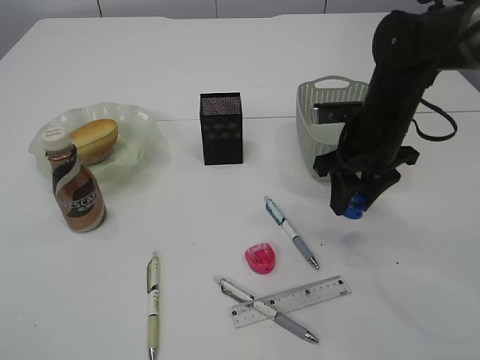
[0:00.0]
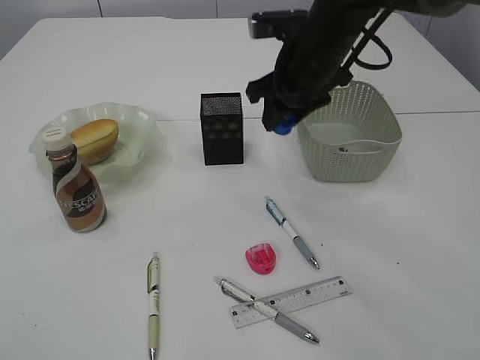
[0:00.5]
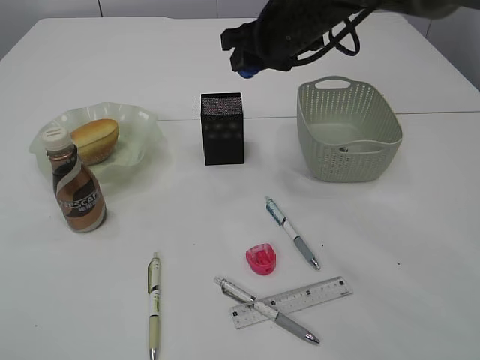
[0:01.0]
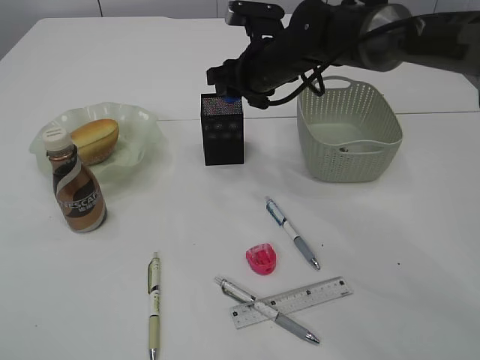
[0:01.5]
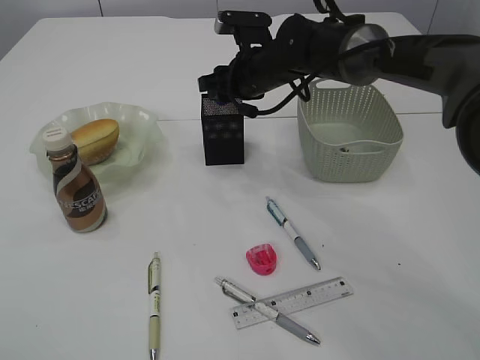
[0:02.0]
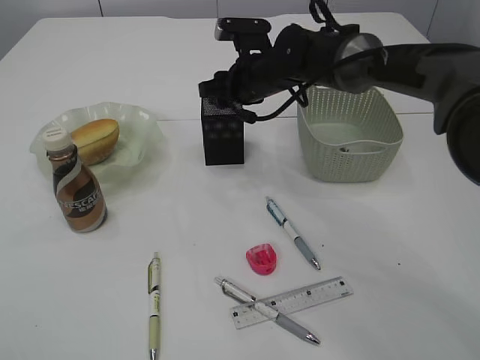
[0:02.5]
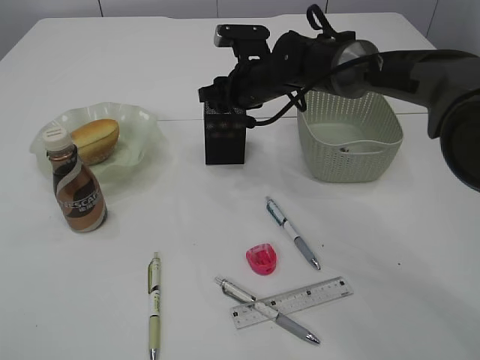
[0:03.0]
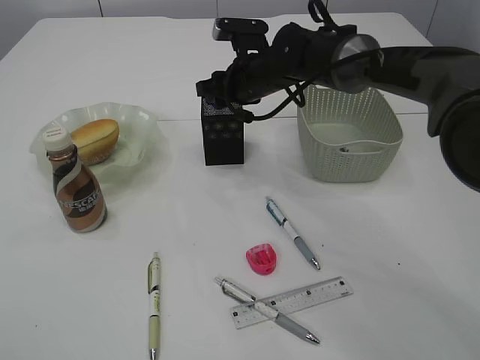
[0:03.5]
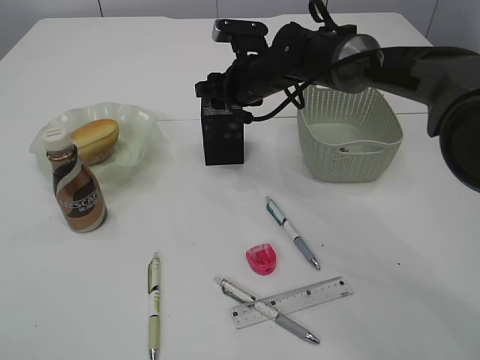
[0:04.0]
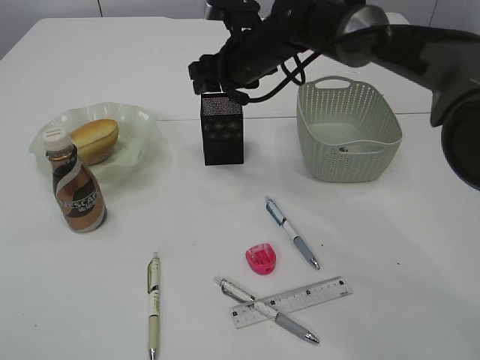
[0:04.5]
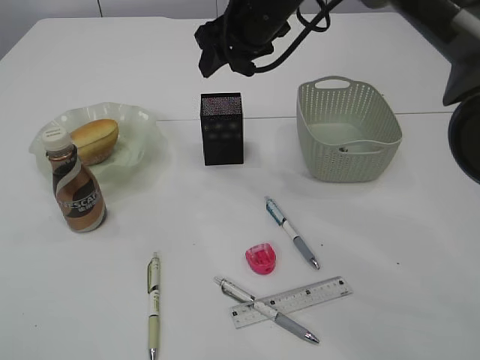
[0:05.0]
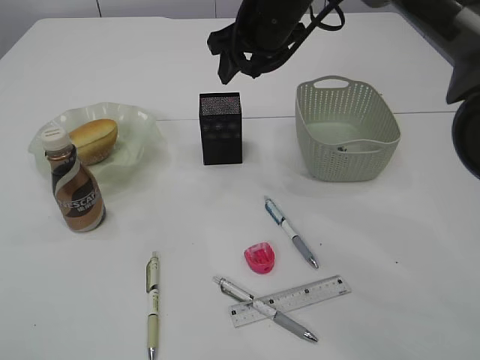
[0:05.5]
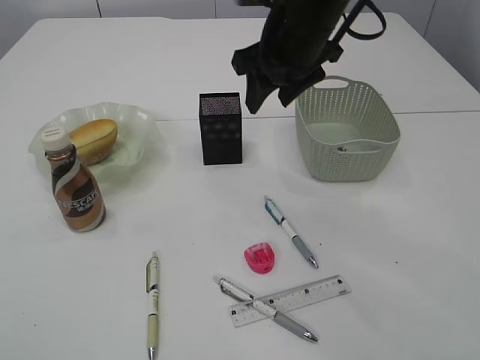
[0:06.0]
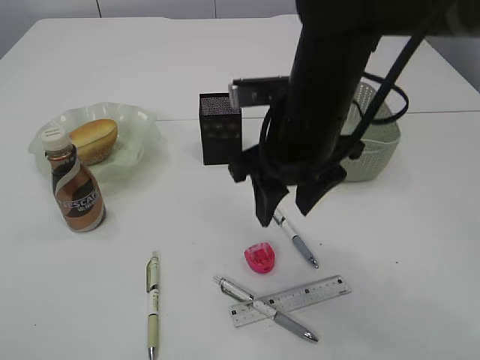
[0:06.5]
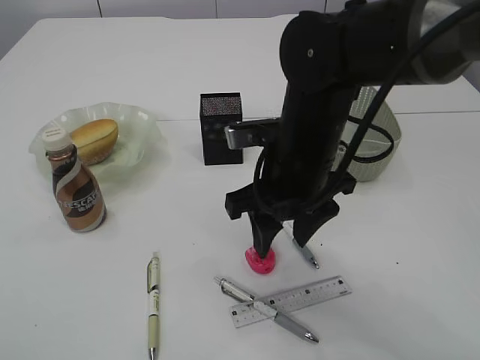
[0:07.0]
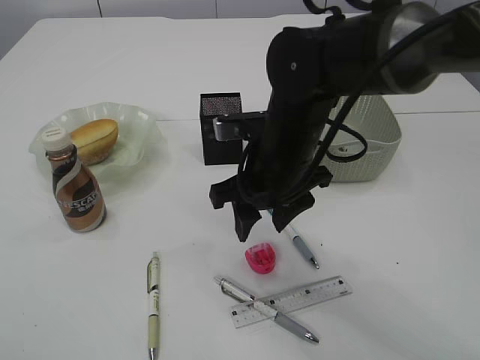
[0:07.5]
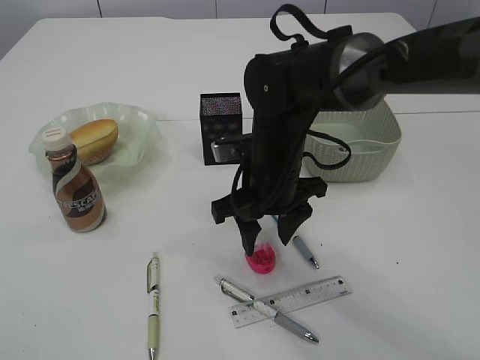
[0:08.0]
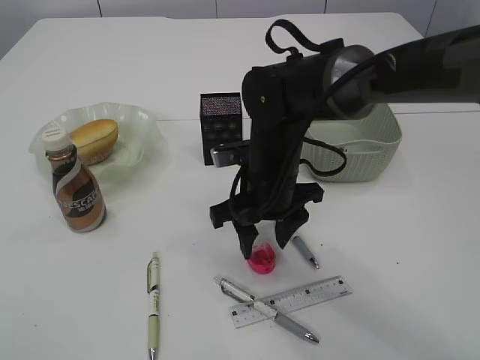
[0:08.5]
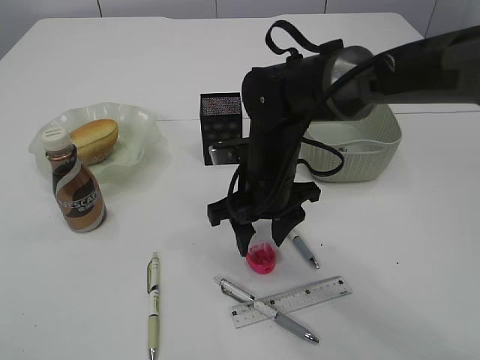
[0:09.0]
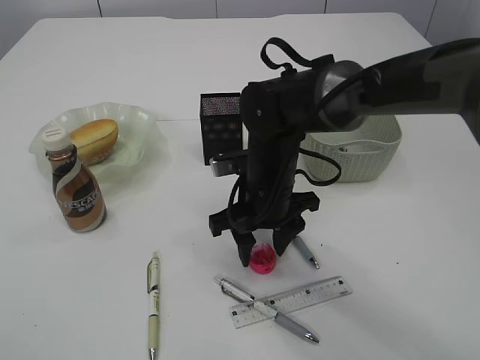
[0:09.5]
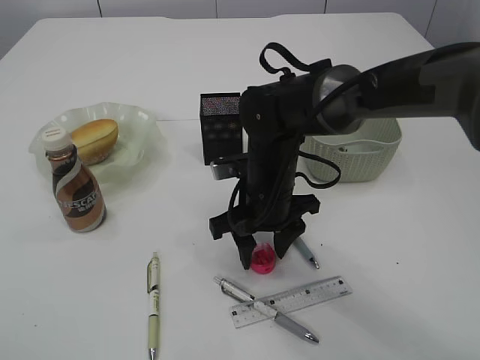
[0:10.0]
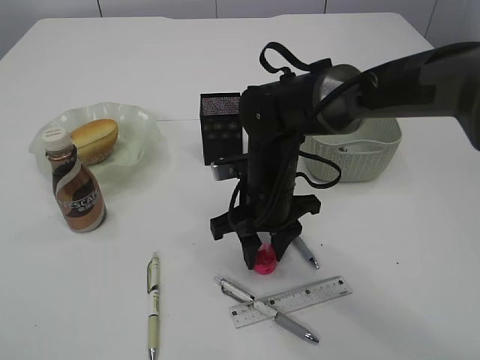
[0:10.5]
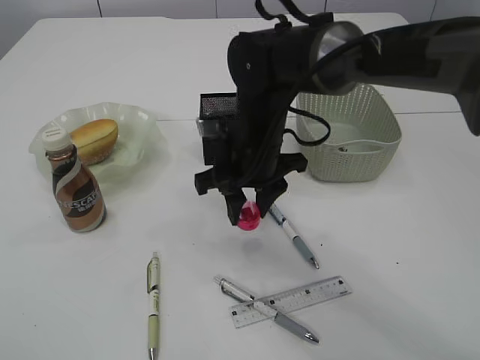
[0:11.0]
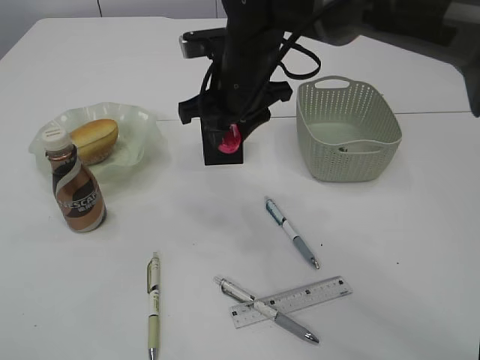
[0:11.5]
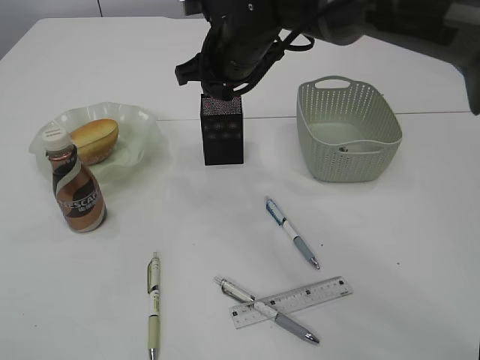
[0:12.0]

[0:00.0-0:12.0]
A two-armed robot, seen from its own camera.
Step, 0:00.0 to 0:04.5: Place the blue pencil sharpener into the pen holder.
Step, 0:05.0 to 0:11.0: Pick up the red pencil sharpener.
0:00.0 to 0:02.0: The right gripper is displaced to the left and forward by about 15 cm.
0:02.0 to 0:04.0: The grippers stay close to where they were, moving slightly.
0:04.0 to 0:06.0: The right gripper shifts roughly 15 cm upward and backward.
0:06.0 to 0:08.0: The right gripper goes roughly 15 cm downward and backward.
0:08.0 to 0:10.0: There are only small adjustments of the grippers.
0:10.0 to 0:12.0: The right gripper is displaced upward and forward by approximately 15 cm.

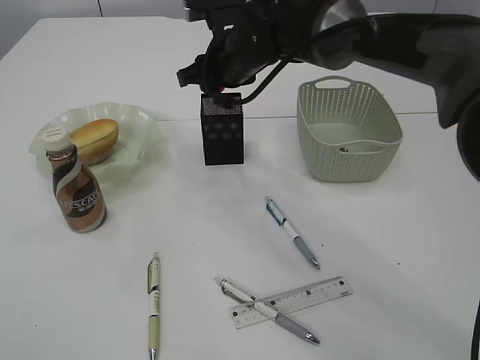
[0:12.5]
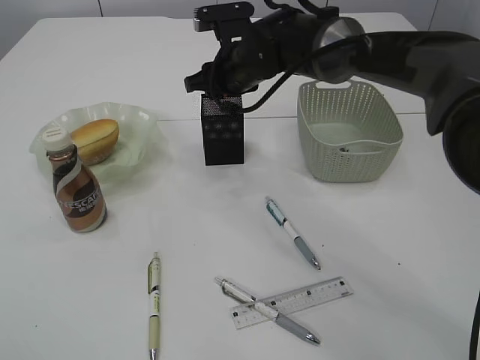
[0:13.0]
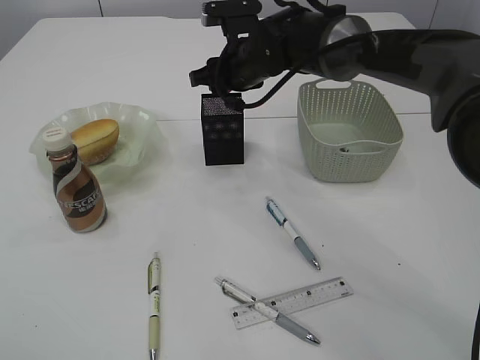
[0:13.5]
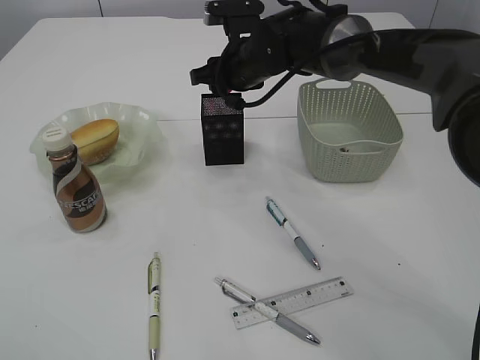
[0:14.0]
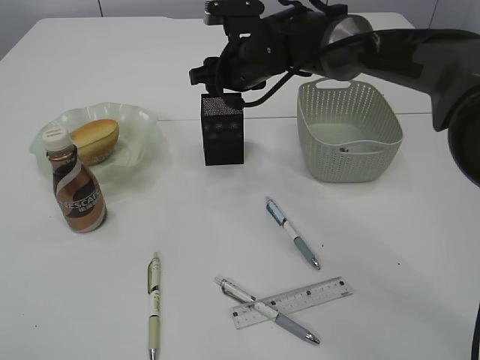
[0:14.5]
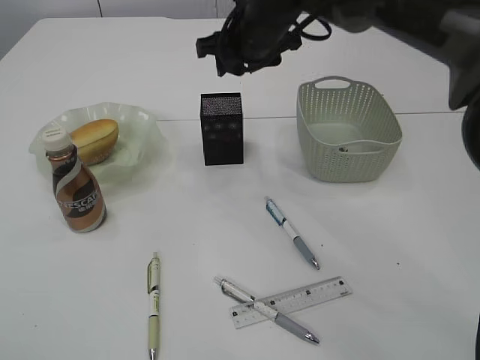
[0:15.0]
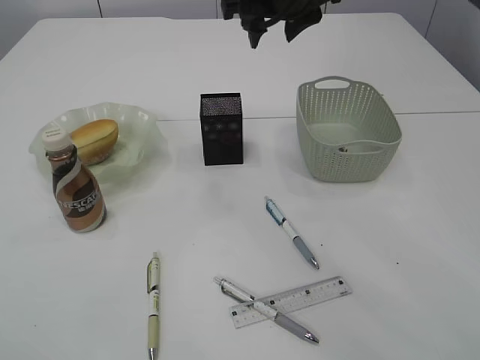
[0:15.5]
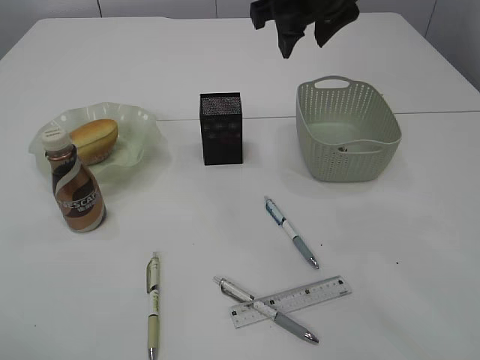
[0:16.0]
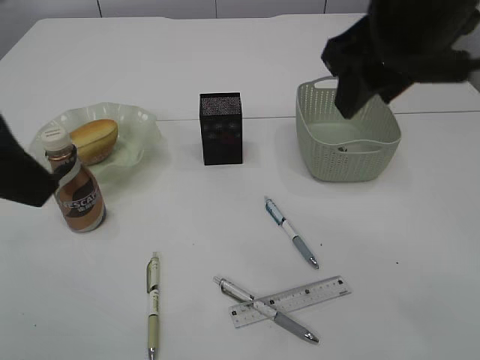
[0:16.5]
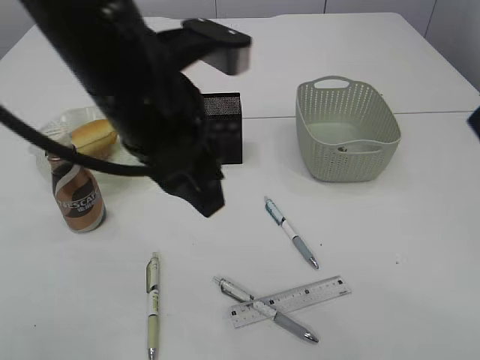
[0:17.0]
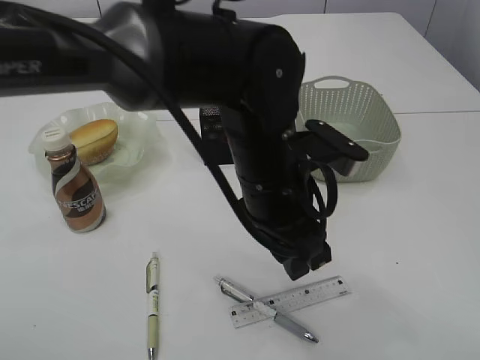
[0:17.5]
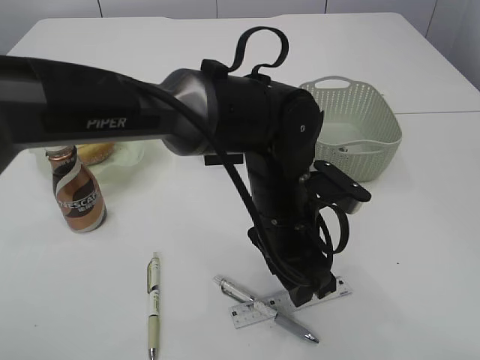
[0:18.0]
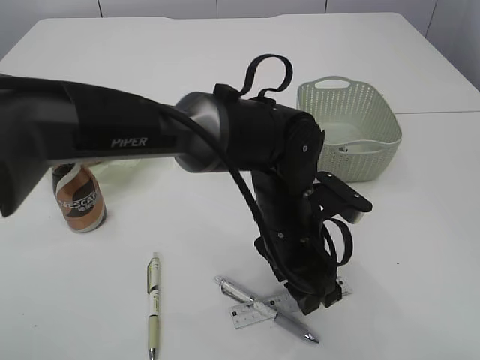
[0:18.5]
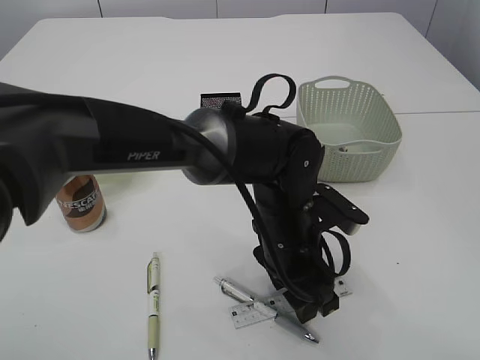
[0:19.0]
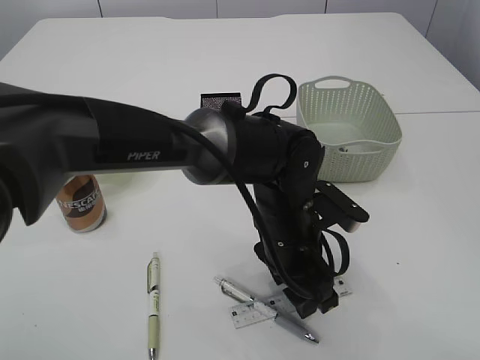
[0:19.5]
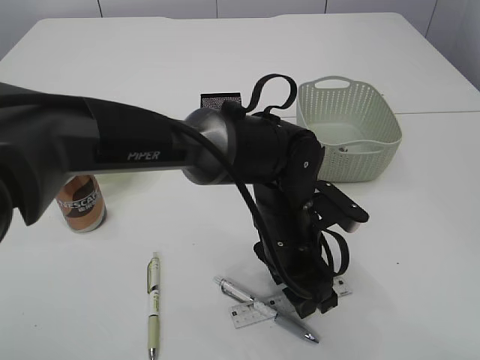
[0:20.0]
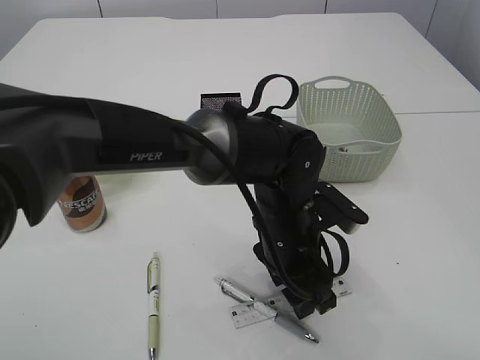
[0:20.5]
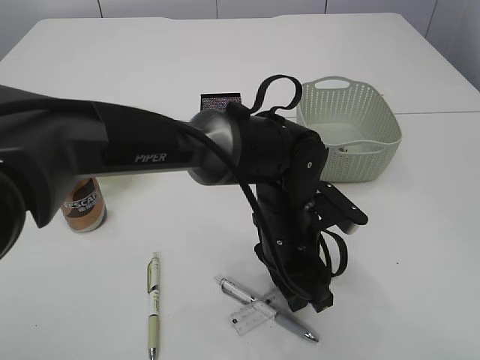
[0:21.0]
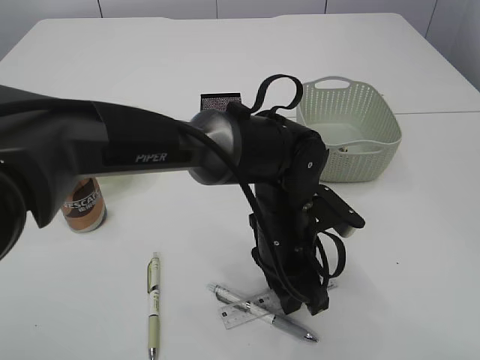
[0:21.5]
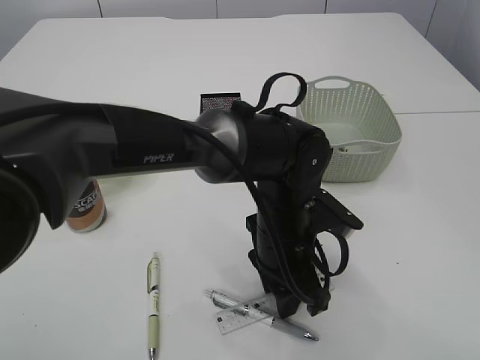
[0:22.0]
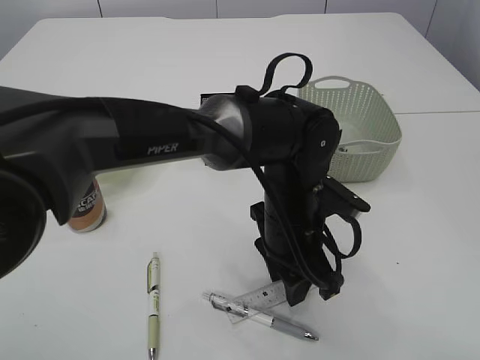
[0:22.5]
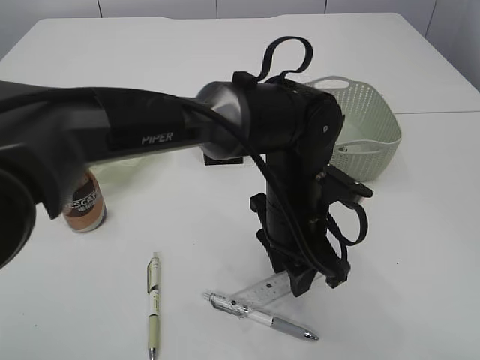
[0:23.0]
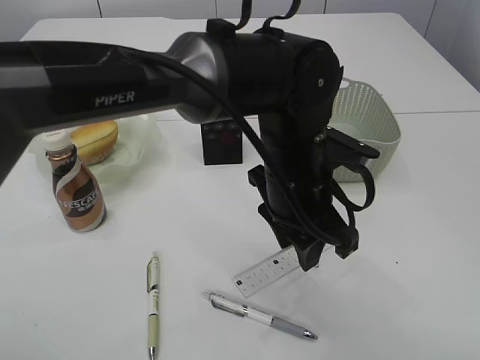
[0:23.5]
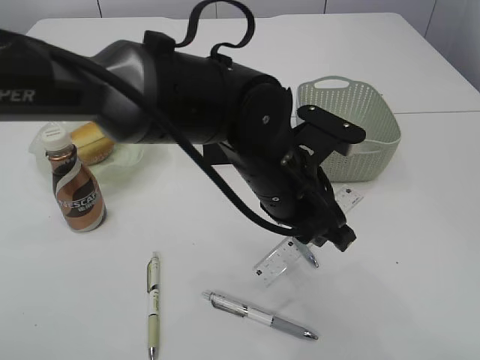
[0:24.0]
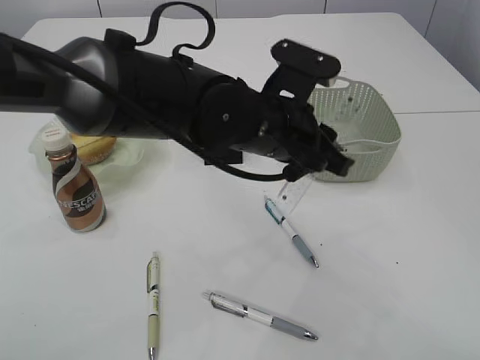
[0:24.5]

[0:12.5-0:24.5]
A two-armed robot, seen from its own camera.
Step, 0:12.5 to 0:15.0: Place the red pencil sharpener into the pen holder.
Step, 0:15.5 to 0:23.0: pick up the ruler.
0:12.5 to 0:14.5: The grippers make only small movements.
0:14.5 to 0:16.5: The right gripper moves backward, upward and to the right, roughly 25 cm. Meanwhile the left gripper heads to the right, forward and upward, covering some 15 cm.
0:16.5 to 0:18.5: The right gripper heads backward and to the right, covering about 20 cm, while the left gripper shifts about 35 cm to the right and downward.
0:18.5 to 0:20.5: There are only small adjustments of the grippers.
0:20.5 to 0:22.5: The left gripper closes.
0:22.5 to 0:24.5: The left gripper shifts roughly 10 cm upward.

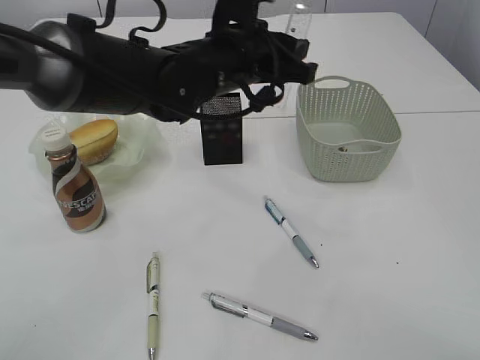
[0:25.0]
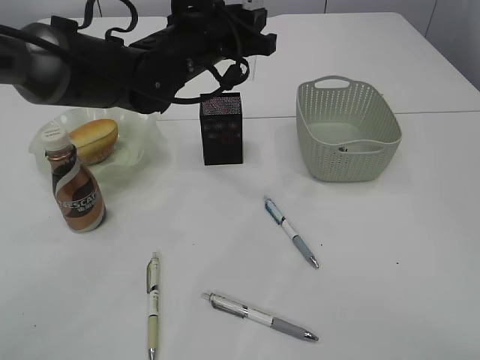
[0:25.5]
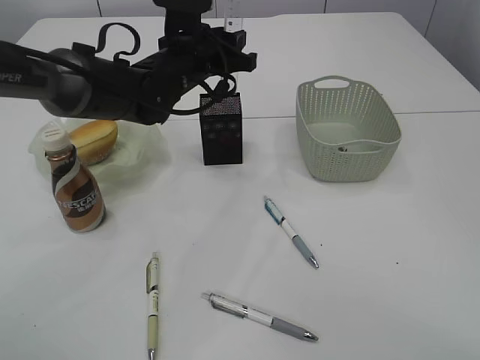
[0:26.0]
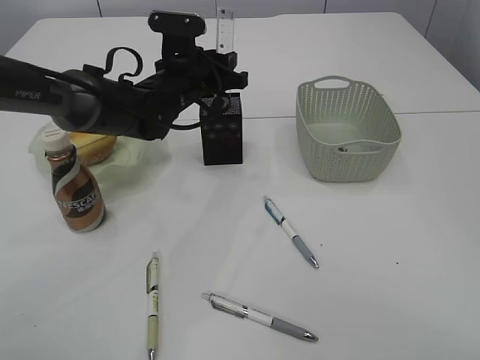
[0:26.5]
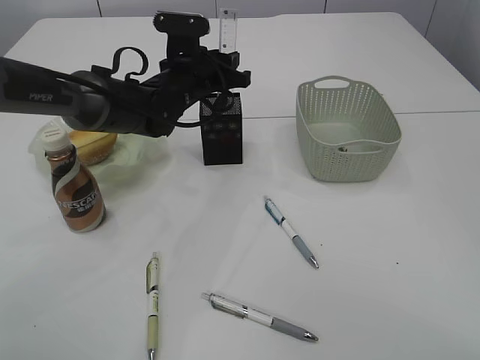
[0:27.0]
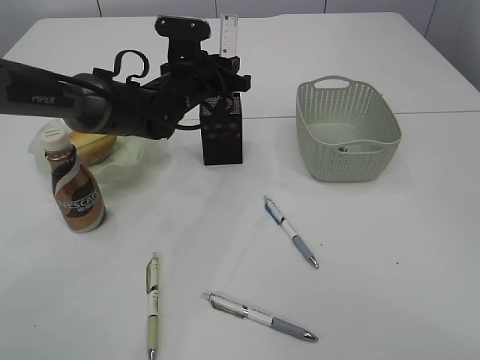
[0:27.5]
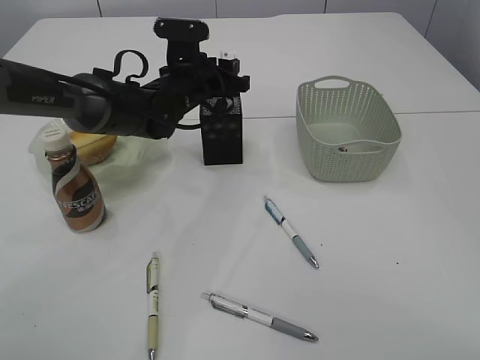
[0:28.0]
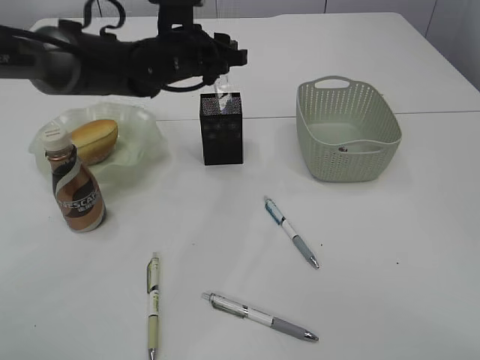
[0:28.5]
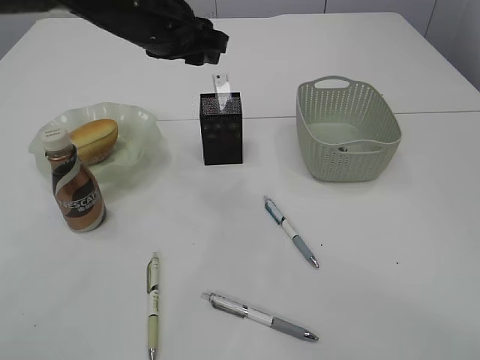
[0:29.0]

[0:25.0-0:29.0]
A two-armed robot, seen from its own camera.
Step, 0:25.0 to 0:29.0: Place the ruler into the pen holder.
0:25.0 to 0:27.0: The left gripper travels forward, downward and to the left by some 15 cm.
0:27.0 to 0:29.0: The left gripper goes about 15 cm upward and backward.
